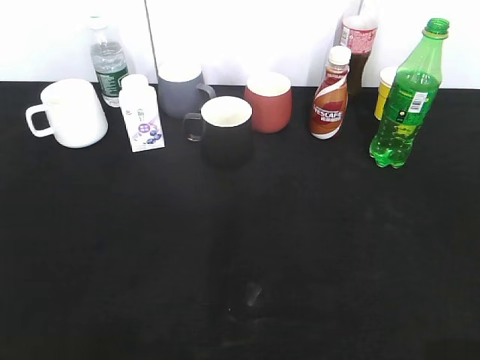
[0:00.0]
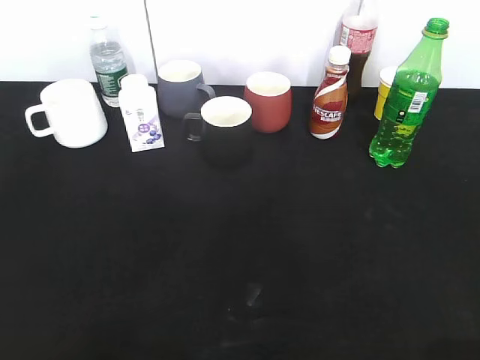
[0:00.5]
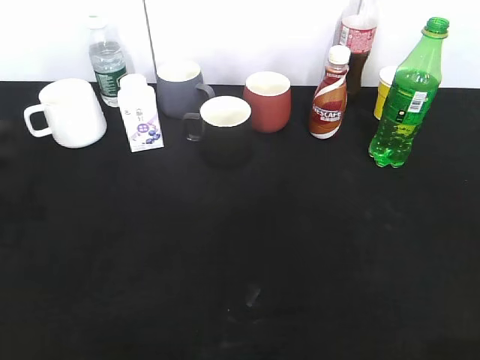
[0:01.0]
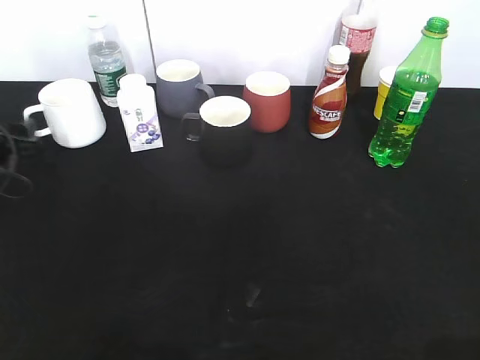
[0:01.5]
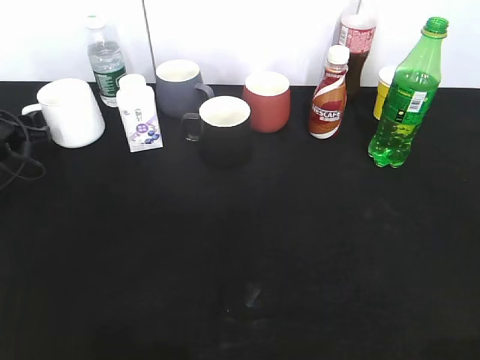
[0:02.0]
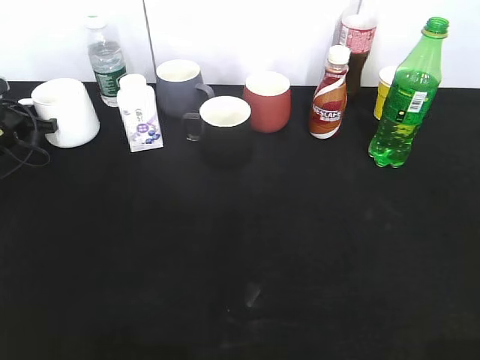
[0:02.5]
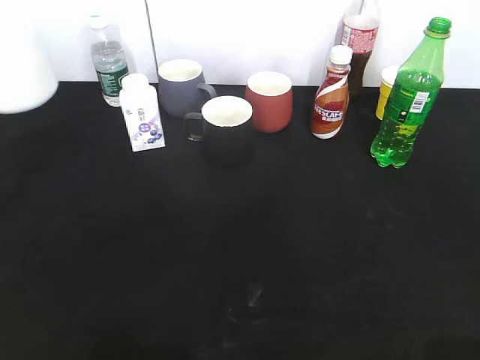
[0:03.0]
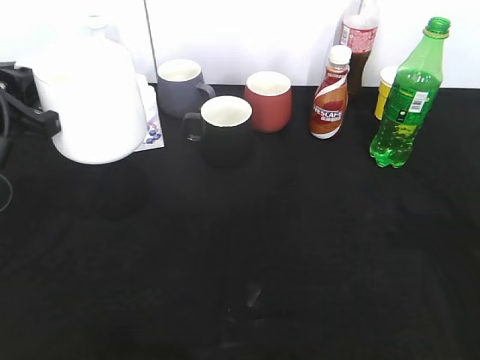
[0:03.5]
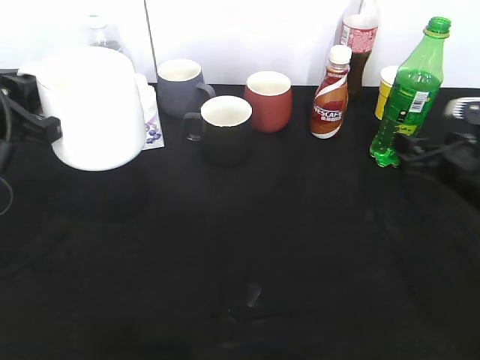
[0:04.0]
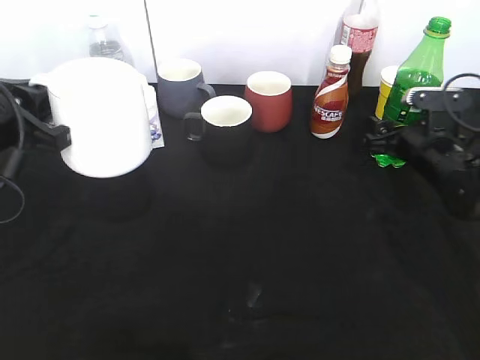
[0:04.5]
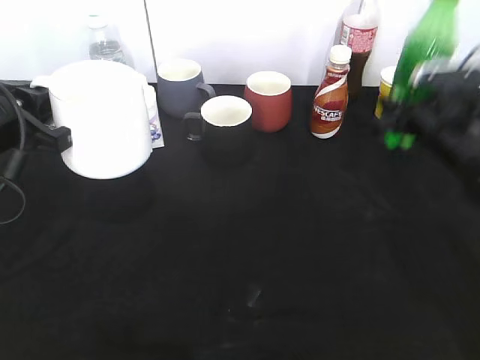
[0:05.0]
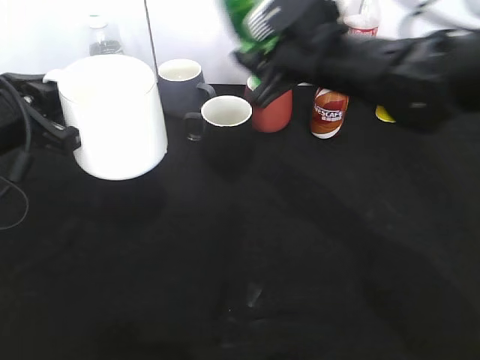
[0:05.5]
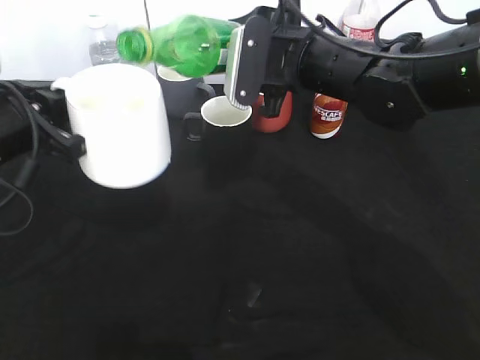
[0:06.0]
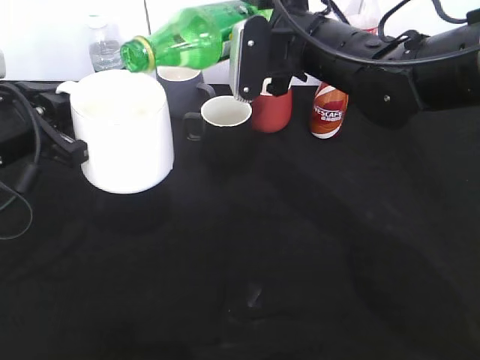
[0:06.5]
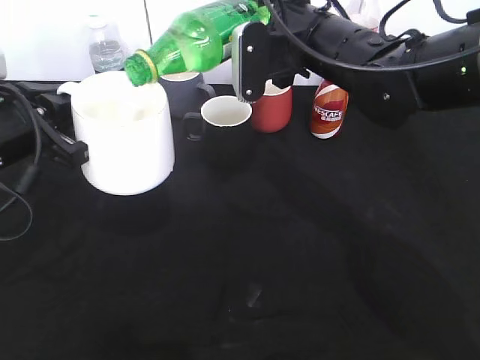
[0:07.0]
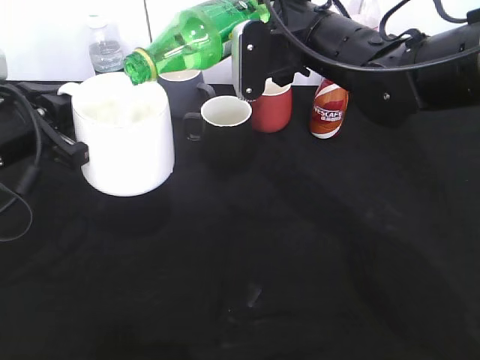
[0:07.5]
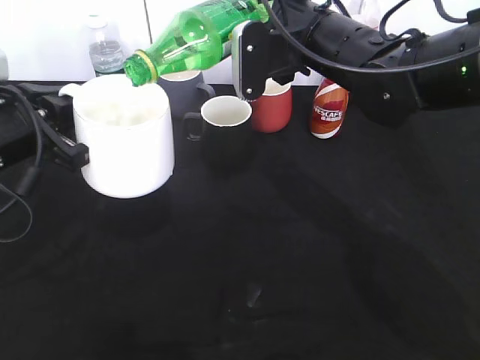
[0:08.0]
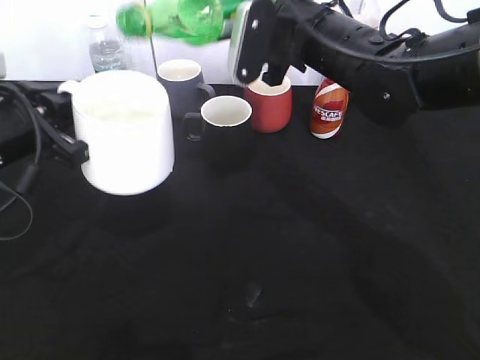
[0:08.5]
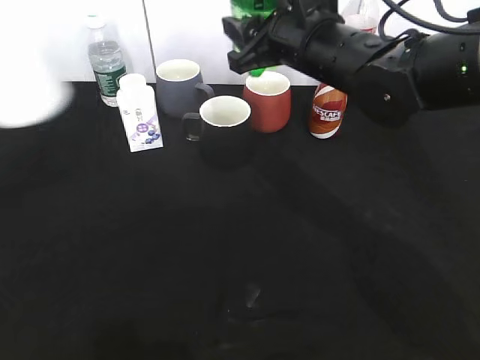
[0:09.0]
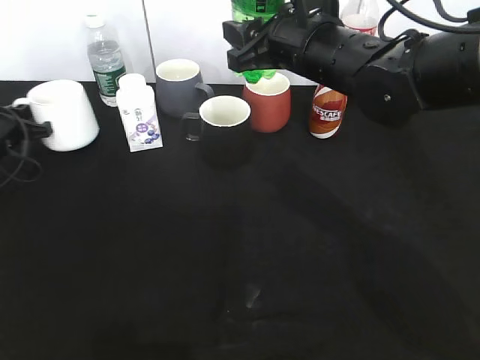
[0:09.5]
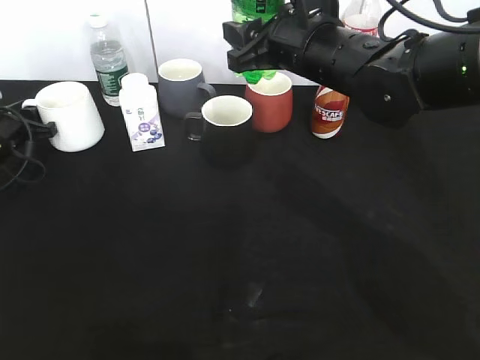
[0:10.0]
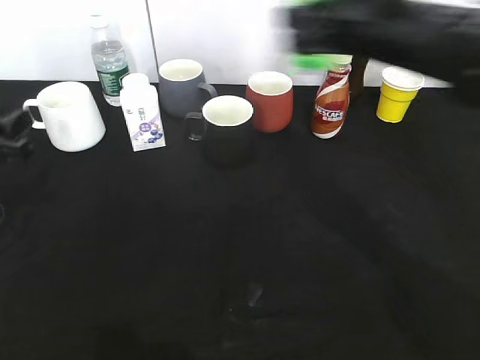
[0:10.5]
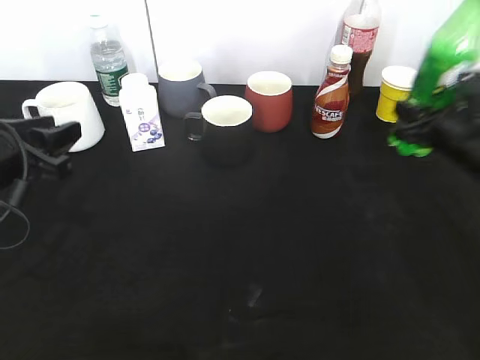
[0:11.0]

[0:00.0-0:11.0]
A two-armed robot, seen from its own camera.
Step, 0:00.0 to 0:02.0: Grasp the white cup with left gripper.
Step, 0:02.5 to 0:03.0: Lift the white cup with left gripper.
Step, 0:04.0 to 0:04.5: Grasp the bottle with sprite with right gripper.
Step, 0:05.0 to 0:08.5: Pour the sprite from bottle to cup with right gripper.
Step, 0:09.0 to 0:10.0: Place the white cup on the table with left gripper.
0:00.0 to 0:02.0: The left gripper travels forward and downward by approximately 50 cm.
0:02.0 to 0:03.5: The left gripper shifts about 25 cm backward, upward and to the right, and closes its fingers. Meanwhile the right gripper moves forward, roughly 20 cm.
0:03.5 to 0:05.5: The right gripper travels to the left and forward by roughly 25 cm, and closes up.
0:07.5 to 0:09.0: The left gripper goes some 10 cm to the left.
0:09.0 to 0:11.0: The left gripper travels to the right by approximately 5 cm, goes forward and returns, approximately 15 cm each way, and opens up. The right gripper goes approximately 25 cm to the right and downward.

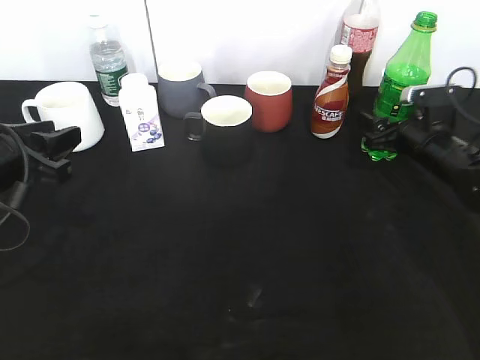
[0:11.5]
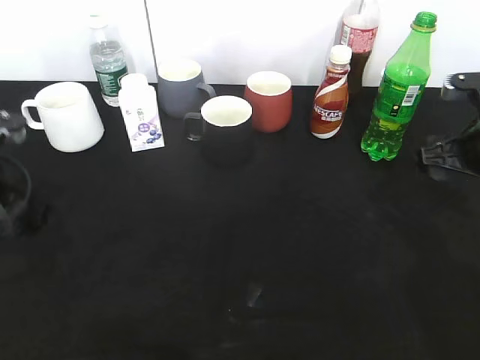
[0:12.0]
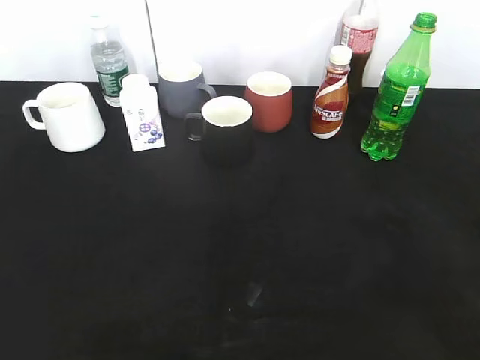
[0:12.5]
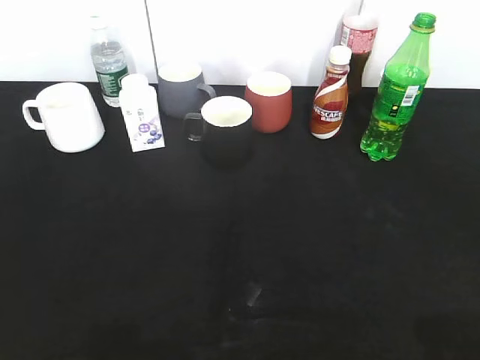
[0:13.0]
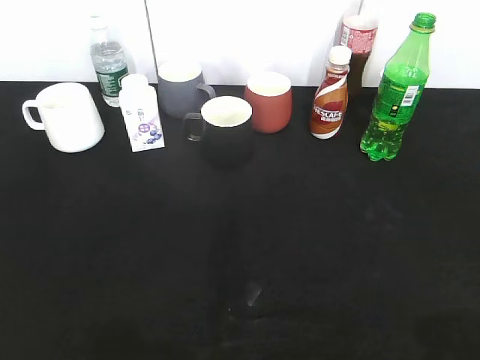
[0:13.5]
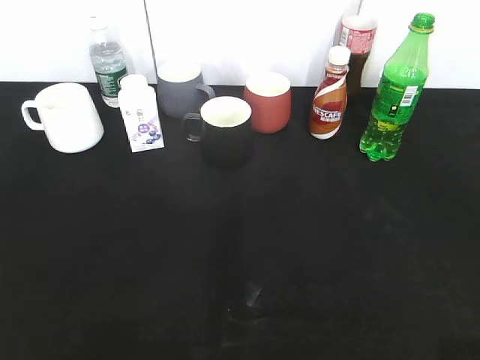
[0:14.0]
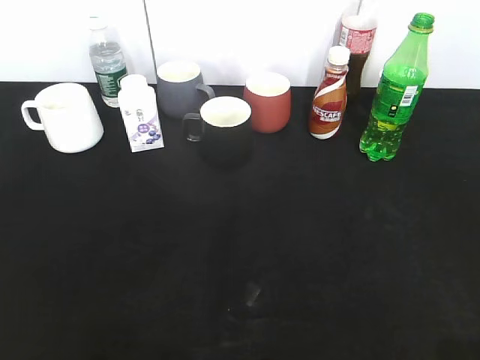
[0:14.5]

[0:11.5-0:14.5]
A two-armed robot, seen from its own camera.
0:11.5 to 0:13.0: The right gripper heads backward and upward, covering some 40 cm. Meanwhile the left gripper heads backward and upward, covering some 25 cm.
0:13.0 to 0:14.5: The left gripper closes its fingers.
